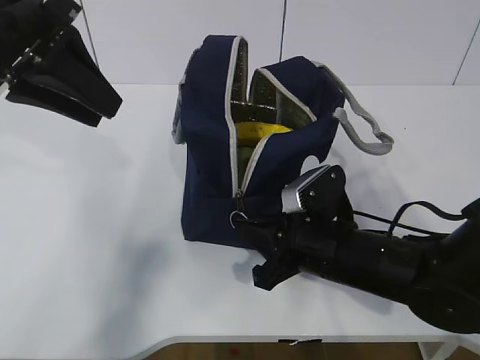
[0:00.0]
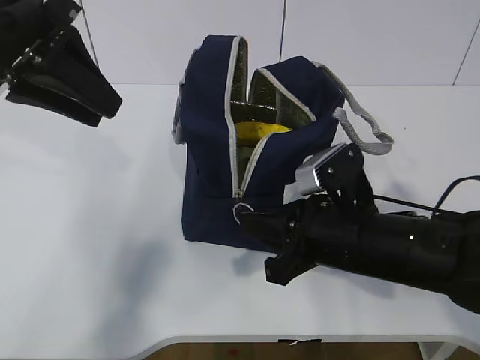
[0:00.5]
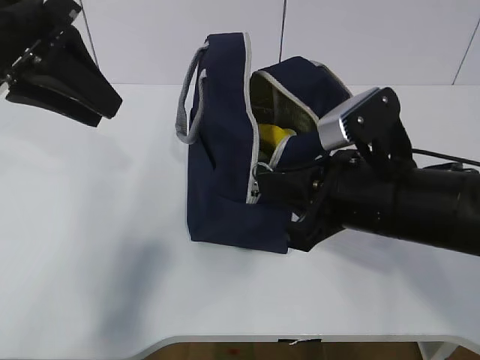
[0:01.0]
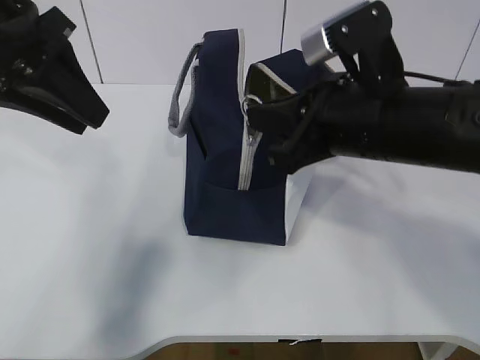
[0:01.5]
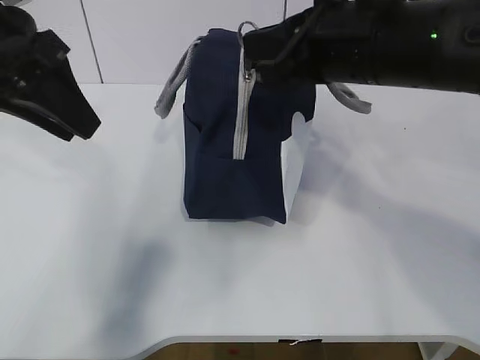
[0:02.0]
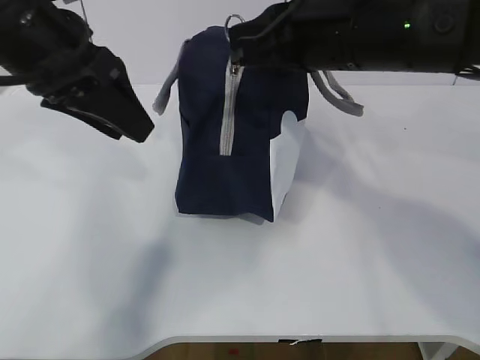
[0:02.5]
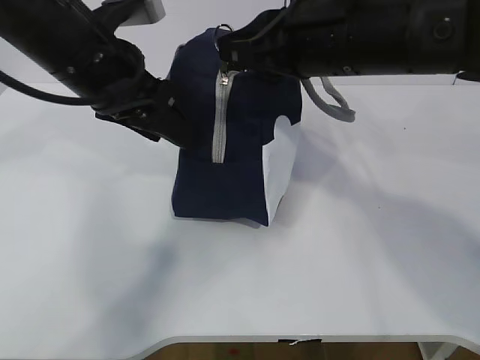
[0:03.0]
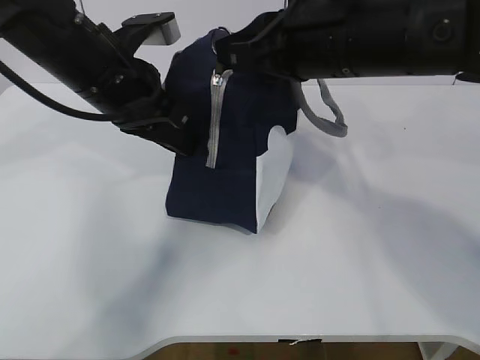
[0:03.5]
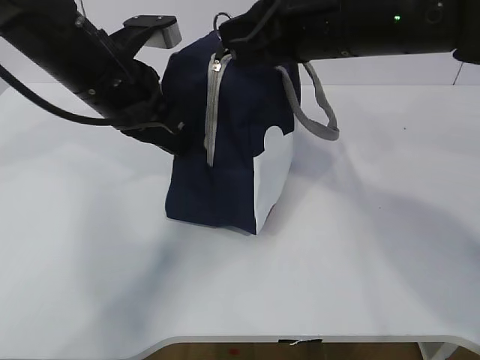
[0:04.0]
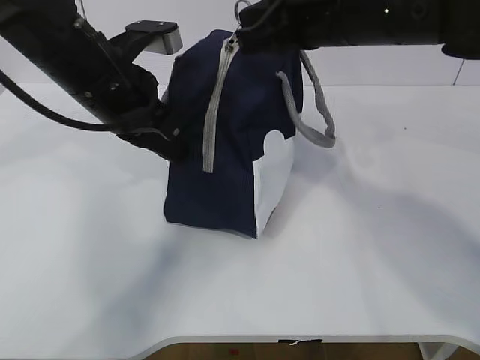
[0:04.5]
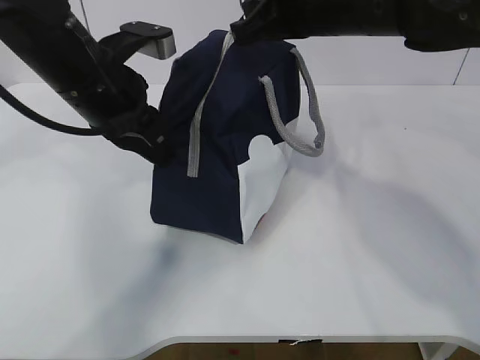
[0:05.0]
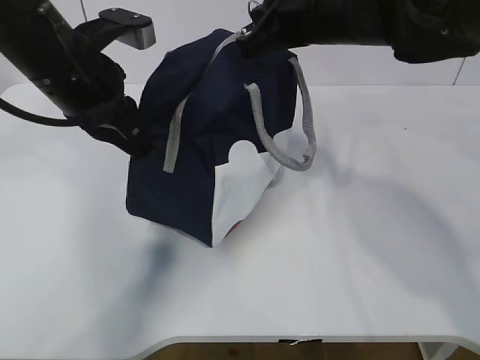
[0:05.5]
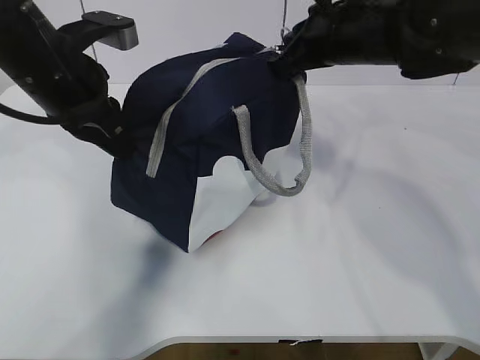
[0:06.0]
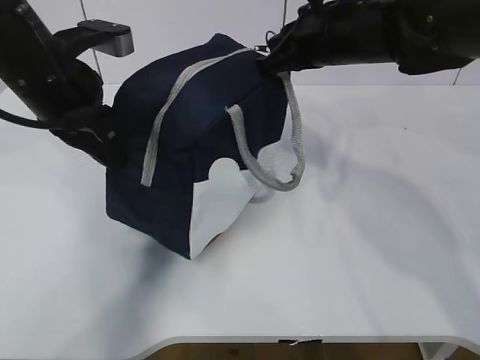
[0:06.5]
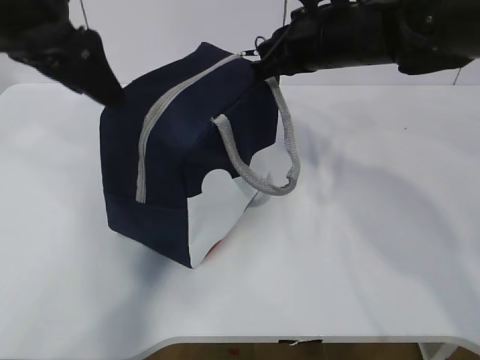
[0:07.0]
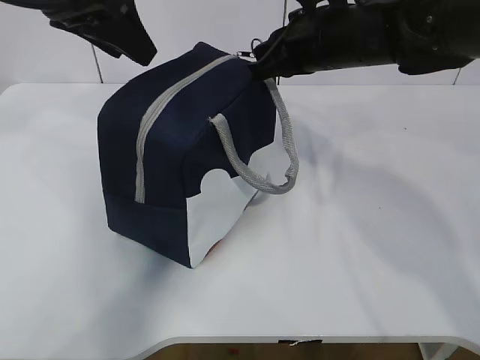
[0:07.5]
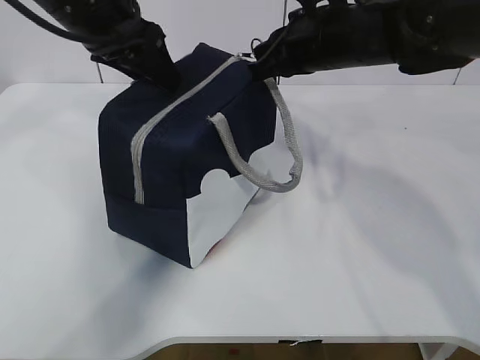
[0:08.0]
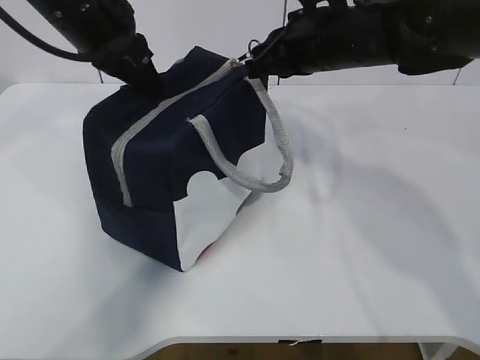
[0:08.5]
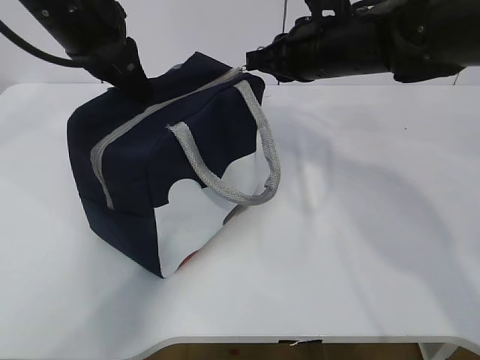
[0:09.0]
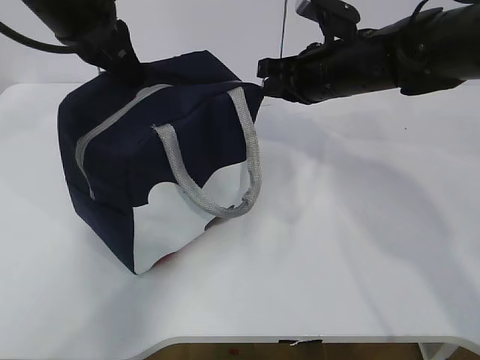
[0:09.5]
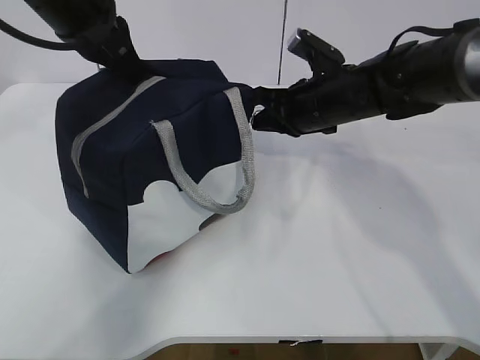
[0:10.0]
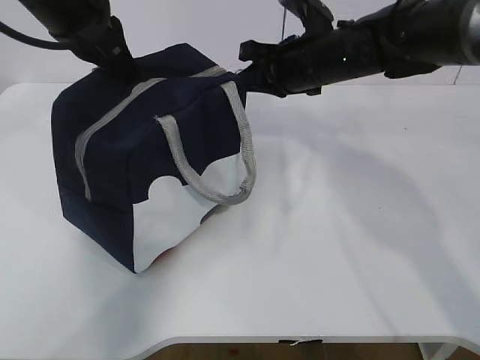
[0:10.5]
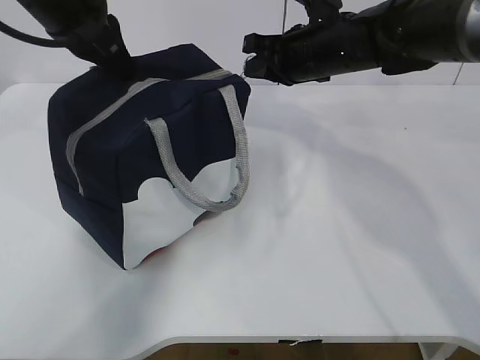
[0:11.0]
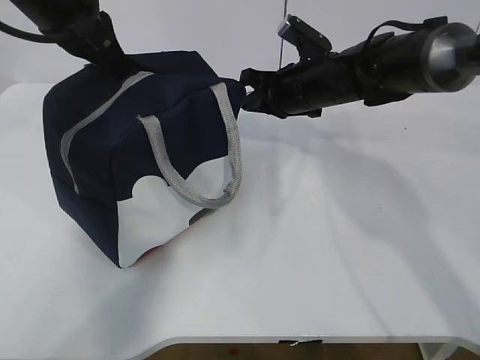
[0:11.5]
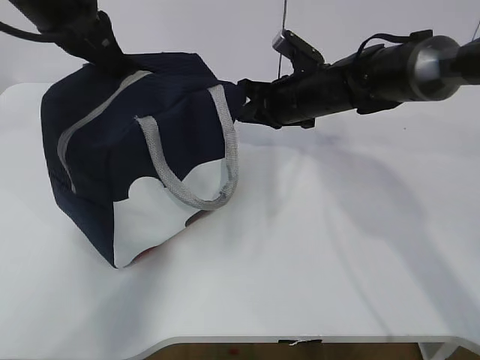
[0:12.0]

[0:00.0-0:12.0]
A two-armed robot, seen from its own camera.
Step, 0.0 to 2.5 s: Pull the zipper with your right hand.
0.0 to 2.0 s: The right gripper shifts some 20 cm upward.
2.0 to 4.0 s: The left gripper moves to the right and downward, about 10 cm, and closes up.
4.0 to 6.0 s: The right gripper goes about 10 cm forward.
6.0 to 8.0 s: The left gripper changes place by roughly 5 cm, and opens its fingers.
8.0 to 10.0 s: The right gripper is displaced downward by roughly 10 cm. Meanwhile the left gripper closes its fingers.
10.0 to 12.0 s: The grippers stay close to where they were, moving slightly.

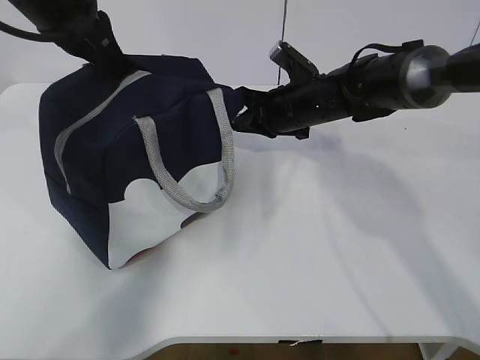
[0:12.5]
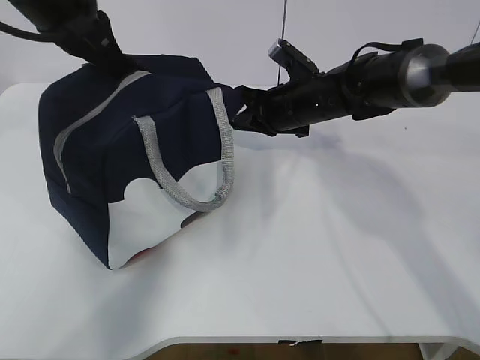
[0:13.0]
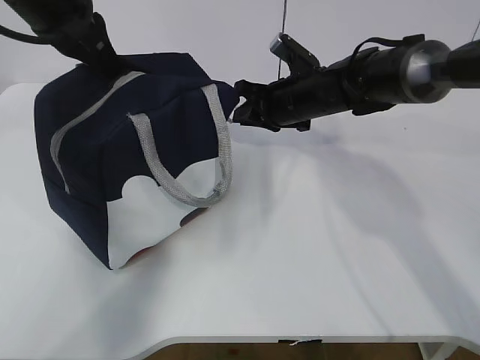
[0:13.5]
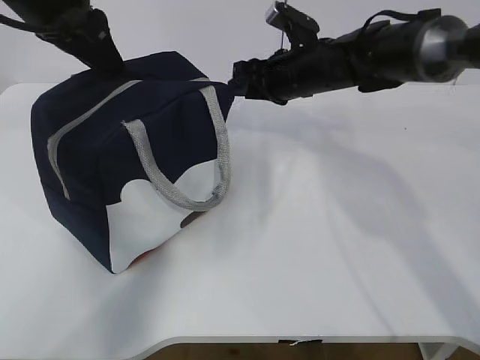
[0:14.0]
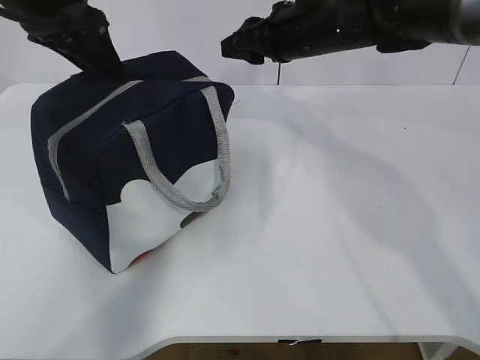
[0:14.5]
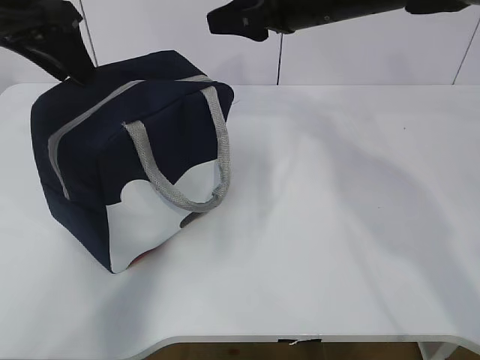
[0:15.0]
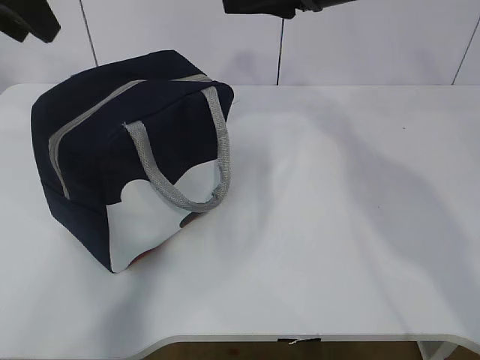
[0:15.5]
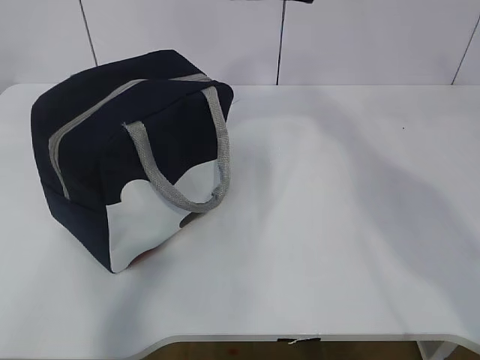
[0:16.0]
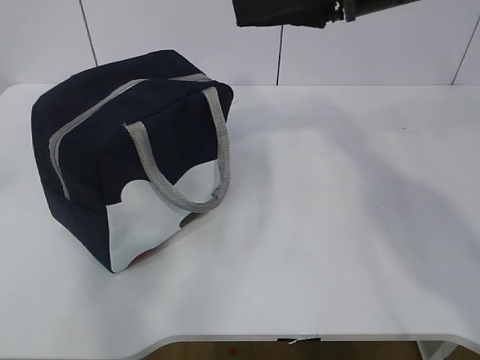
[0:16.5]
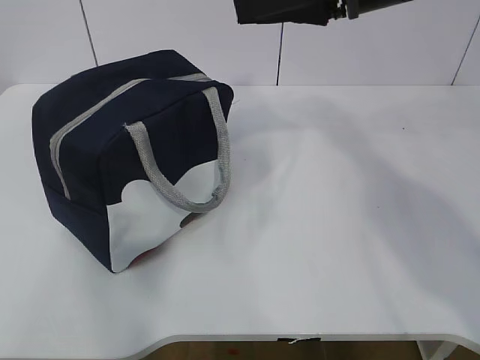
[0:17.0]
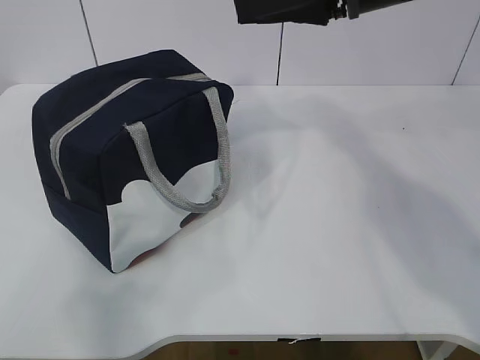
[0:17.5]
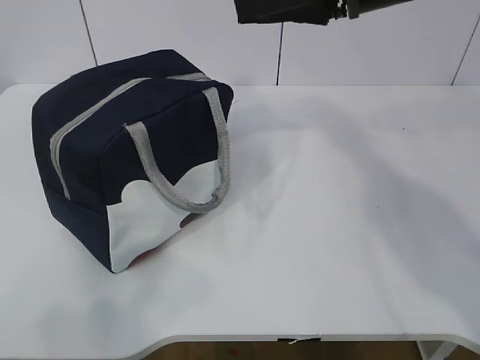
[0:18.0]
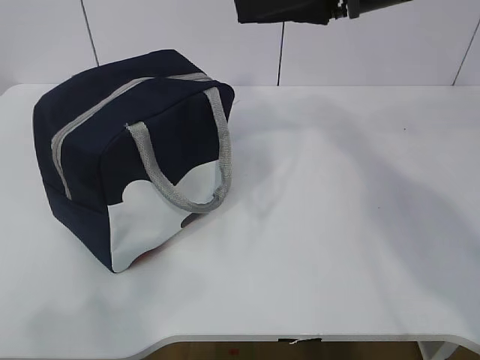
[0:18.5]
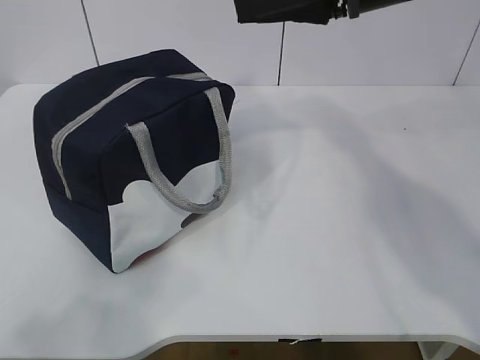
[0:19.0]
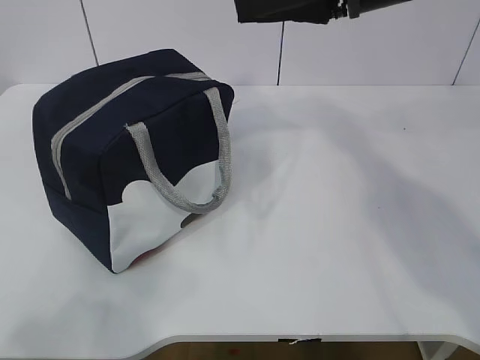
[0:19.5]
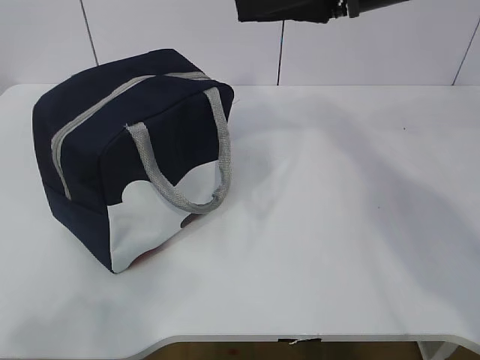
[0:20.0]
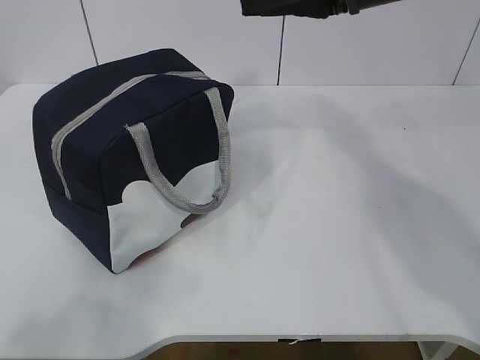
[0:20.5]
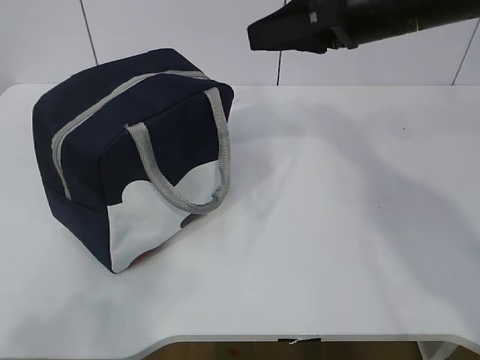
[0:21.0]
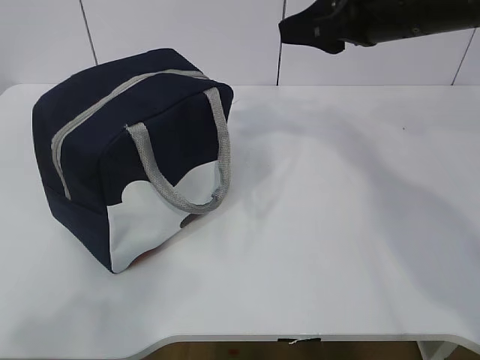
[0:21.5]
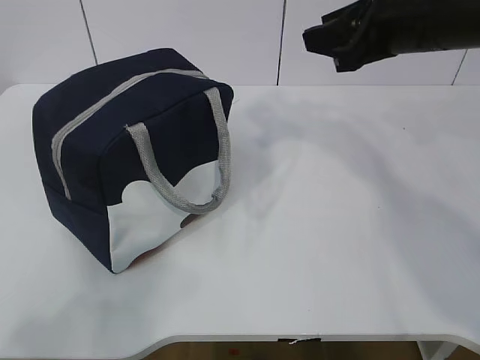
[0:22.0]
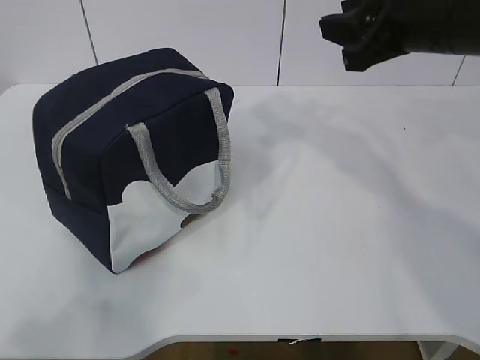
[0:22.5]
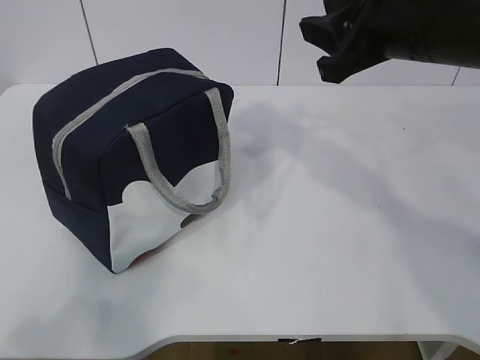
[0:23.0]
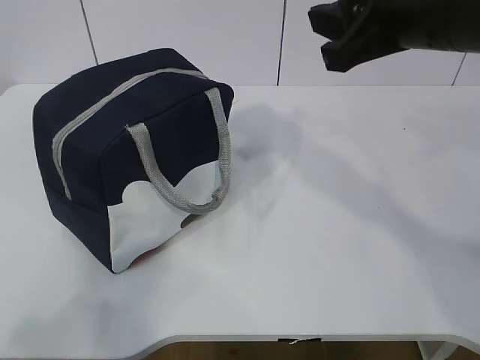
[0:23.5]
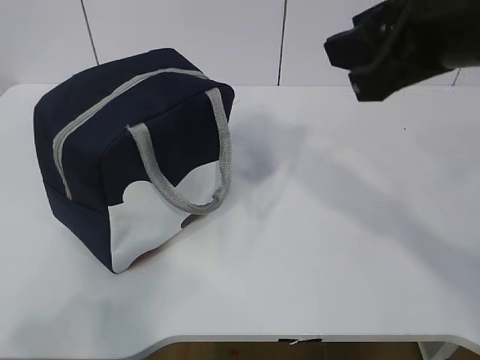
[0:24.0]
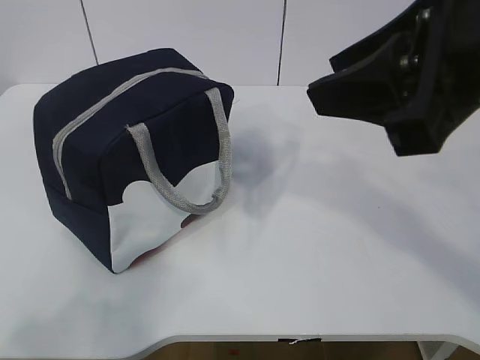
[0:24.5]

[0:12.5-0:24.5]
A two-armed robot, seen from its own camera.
12.5 to 14.5 s: The left gripper opens its fingers, while the right gripper goes roughly 10 cm upward, and opens.
14.5 to 16.5 s: The left gripper heads backward and upward, covering some 25 cm; the right gripper heads backward and upward, covering roughly 15 cm.
16.5 to 18.5 s: The left gripper is displaced downward and backward by about 20 cm.
18.5 to 20.5 s: The grippers make only small movements.
20.5 to 22.5 s: The right gripper shifts by about 5 cm.
22.5 to 24.5 s: The right gripper travels backward by some 15 cm.

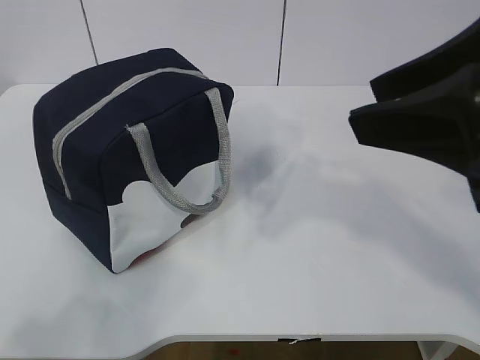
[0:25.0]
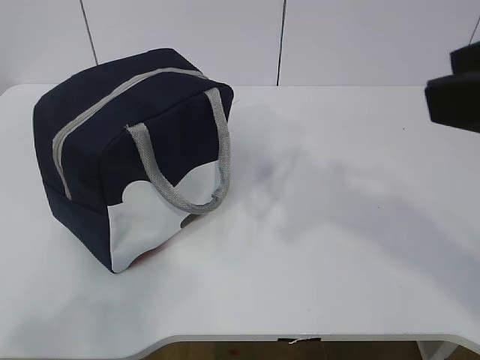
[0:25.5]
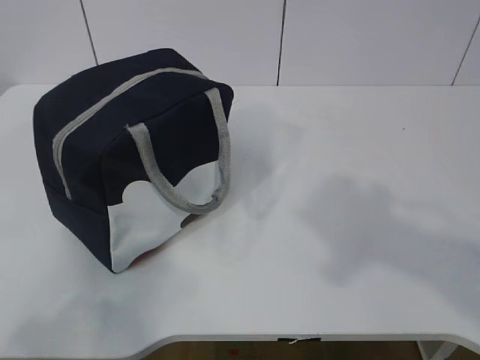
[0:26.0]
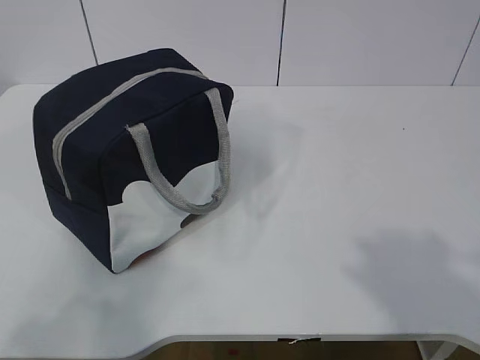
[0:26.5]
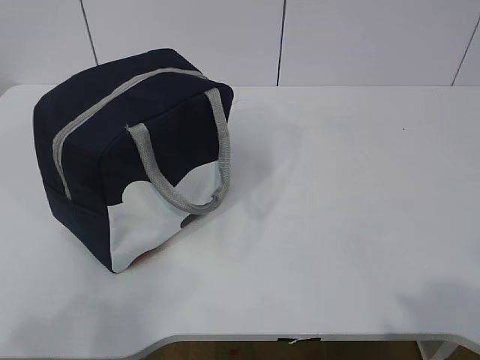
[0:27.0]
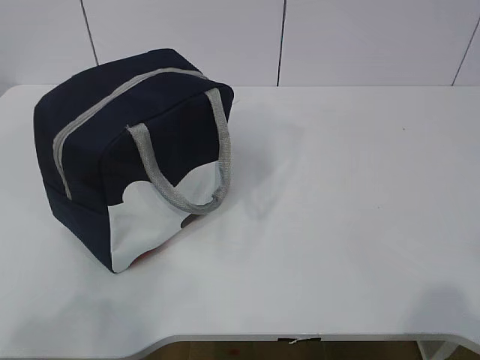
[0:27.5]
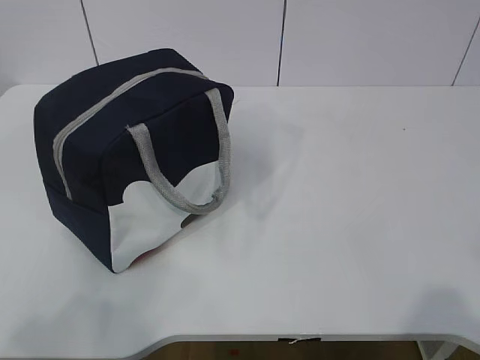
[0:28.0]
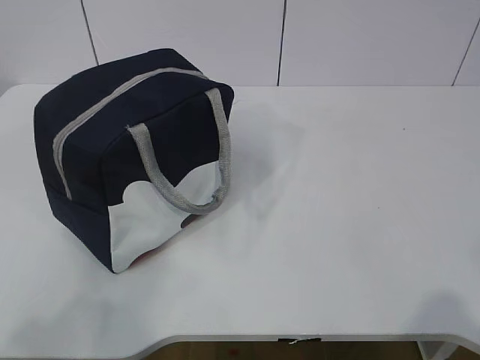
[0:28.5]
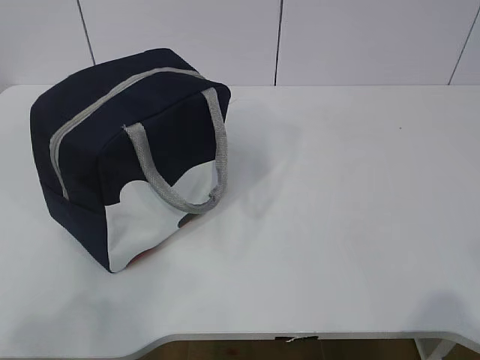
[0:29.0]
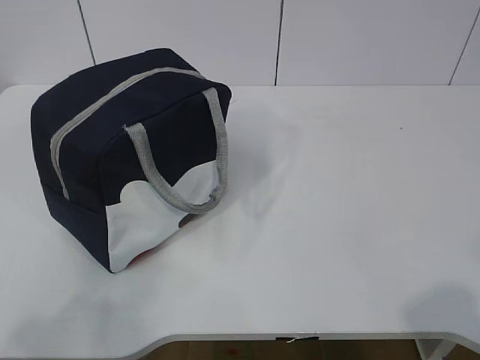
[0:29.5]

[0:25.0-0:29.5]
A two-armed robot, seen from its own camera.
25.0 to 27.0 s: The right gripper heads backward and to the right, covering about 25 cm.
27.0 to 29.5 s: The right gripper goes about 5 cm downward.
